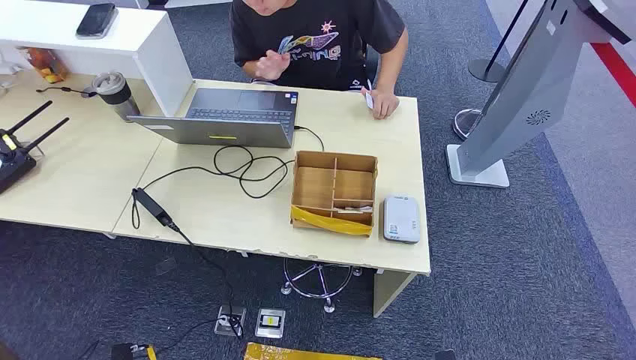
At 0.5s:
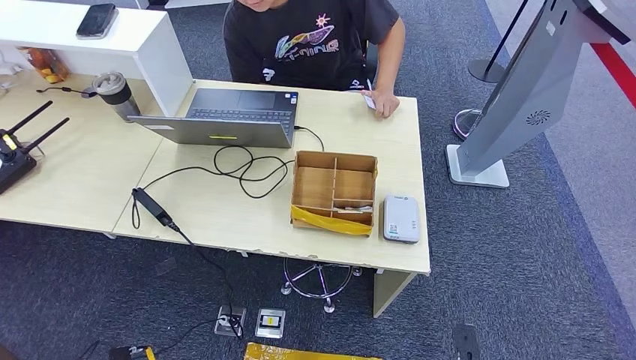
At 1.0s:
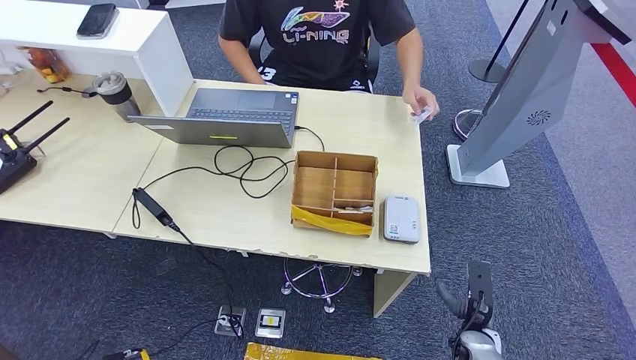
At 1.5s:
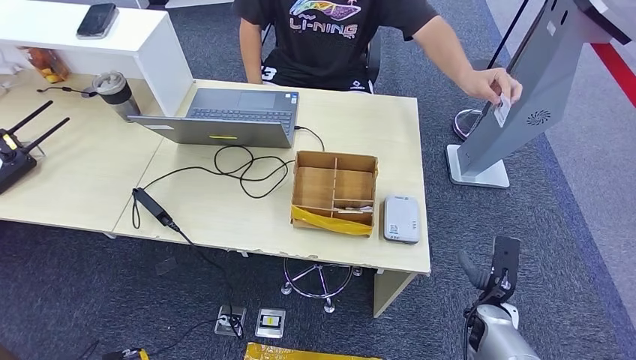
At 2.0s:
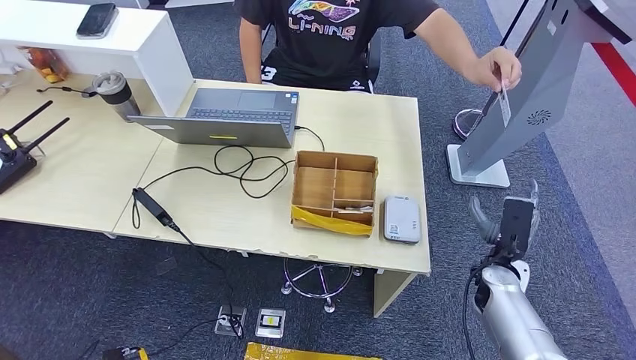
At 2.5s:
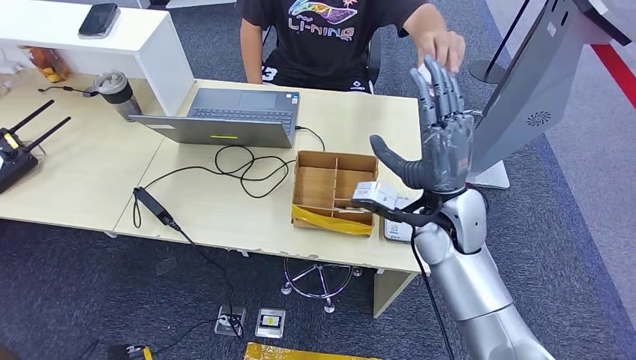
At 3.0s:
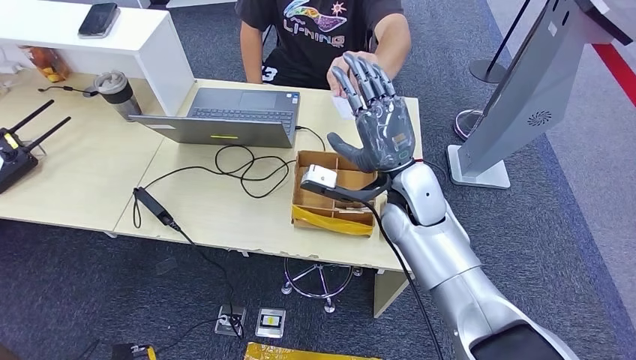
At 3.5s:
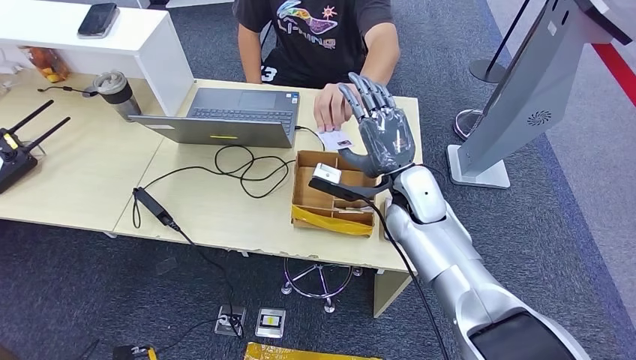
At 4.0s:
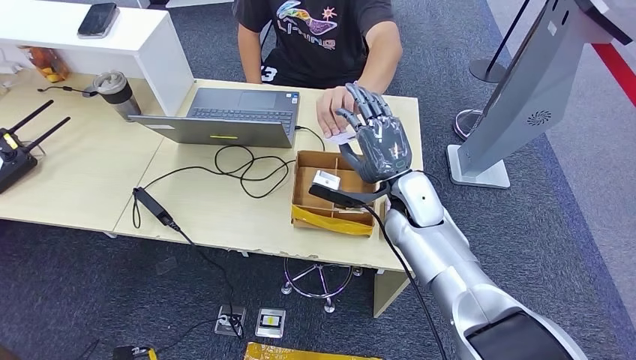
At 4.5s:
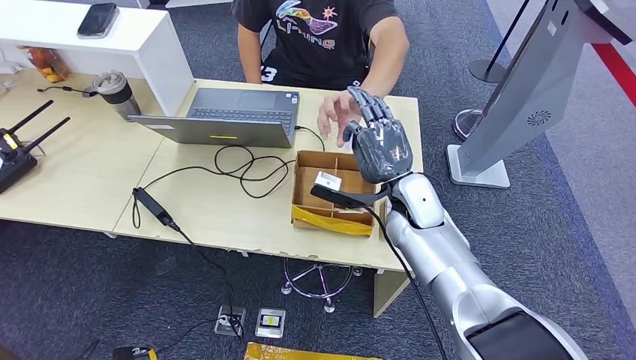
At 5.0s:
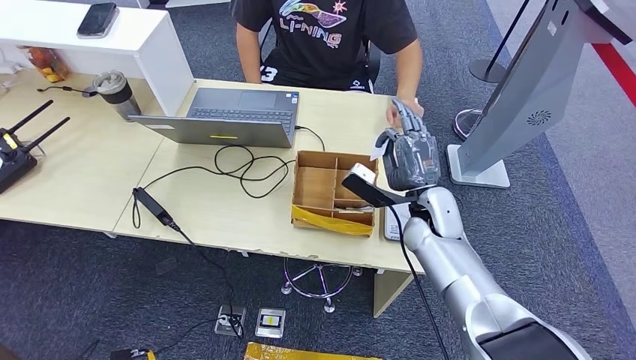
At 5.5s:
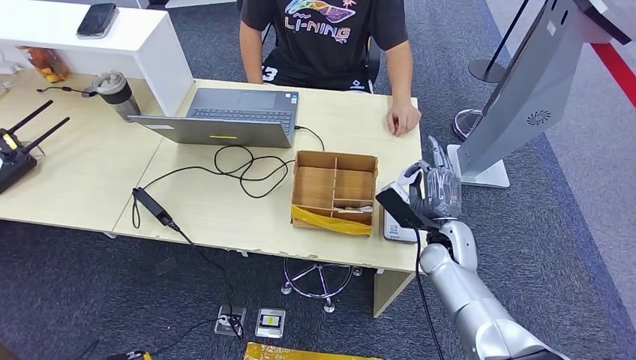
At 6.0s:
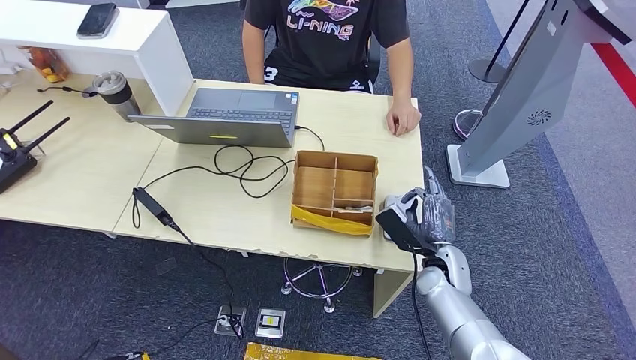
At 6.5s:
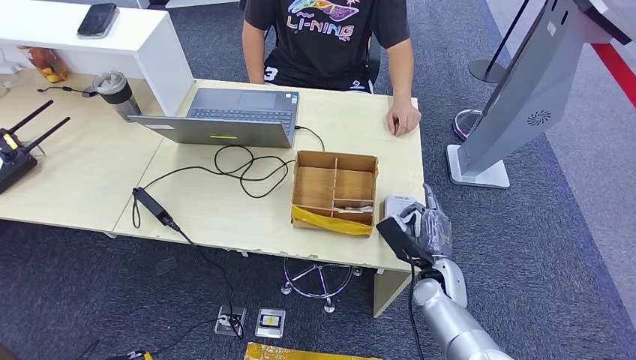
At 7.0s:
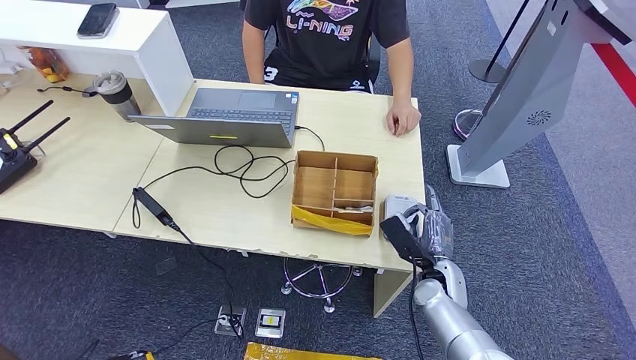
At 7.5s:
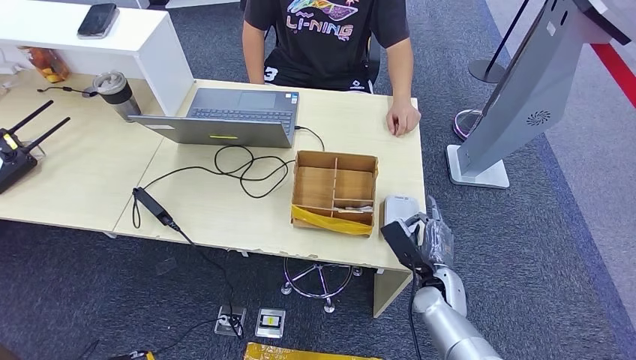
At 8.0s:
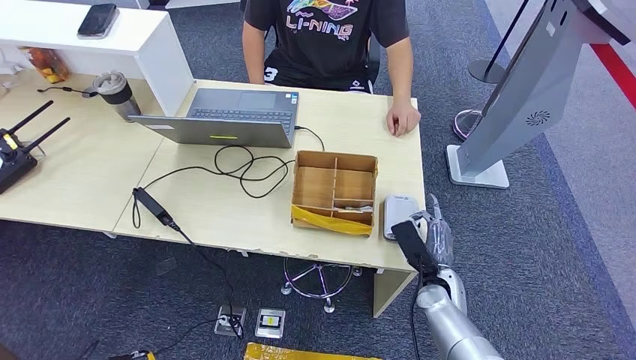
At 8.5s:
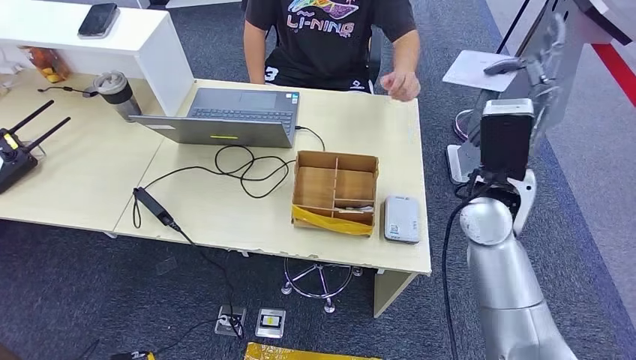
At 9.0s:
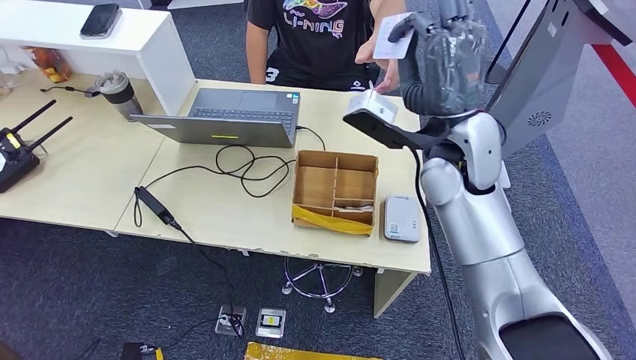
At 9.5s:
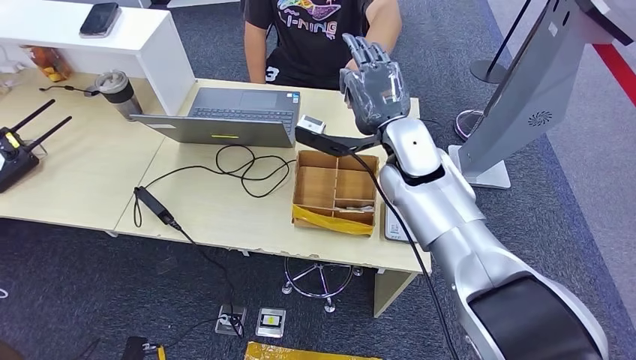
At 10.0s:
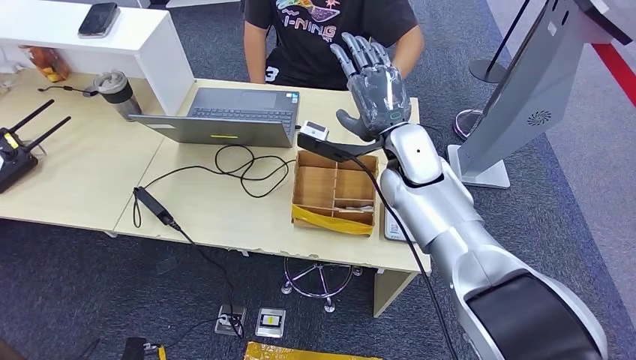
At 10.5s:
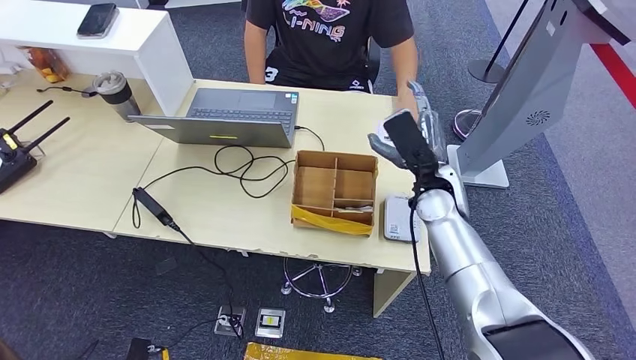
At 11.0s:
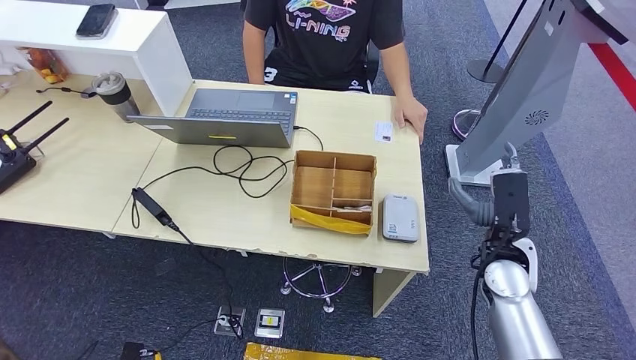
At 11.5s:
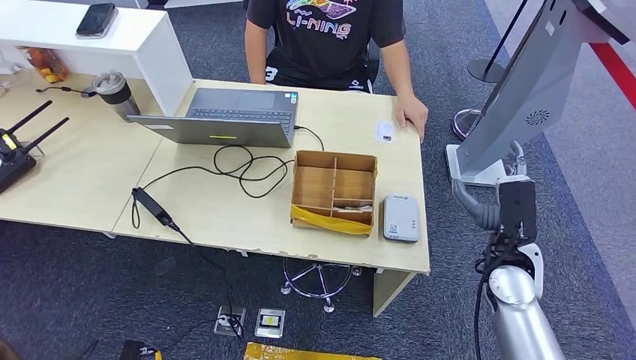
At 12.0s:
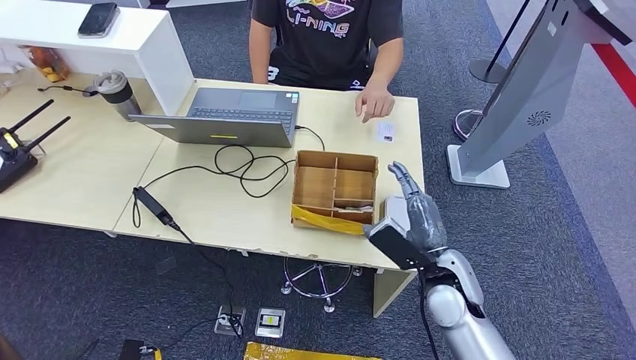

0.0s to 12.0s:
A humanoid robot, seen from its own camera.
Step, 0.0s to 4.0s: Take the ID card from the person's hand.
Step, 6.0s to 6.5s: Place the ID card on the card reader.
Step, 7.0s to 10.5s: Hand the ID card to the person.
2.0s to 4.0s: The right hand shifts some 25 cm to the left and upward.
4.0s to 6.0s: The right hand travels downward, to the right and backward by approximately 20 cm.
6.0s to 8.0s: The hands make only small movements.
8.0s to 10.0s: The right hand shifts about 30 cm upward, forward and to the left.
10.0s to 12.0s: The right hand shifts roughly 20 cm downward, backward and to the right.

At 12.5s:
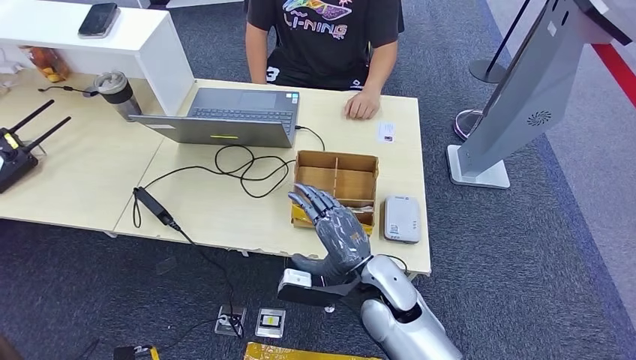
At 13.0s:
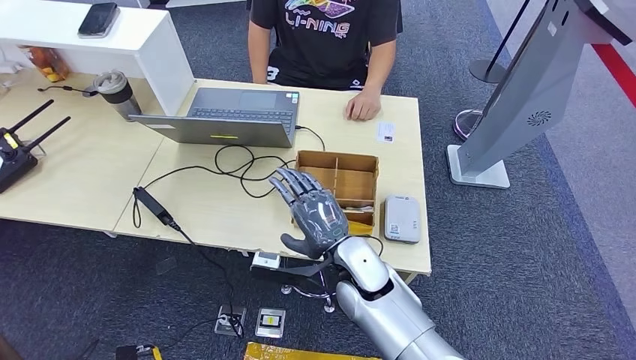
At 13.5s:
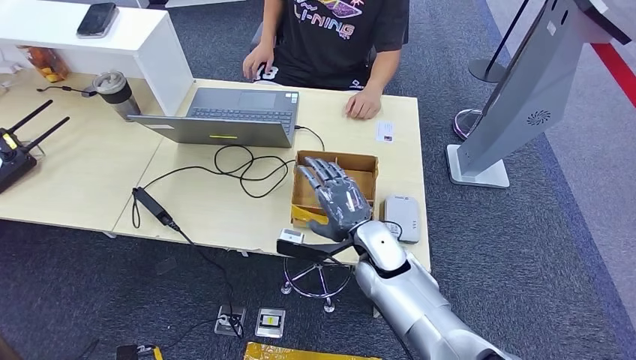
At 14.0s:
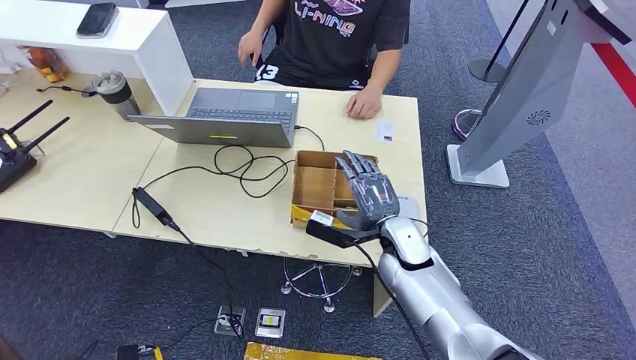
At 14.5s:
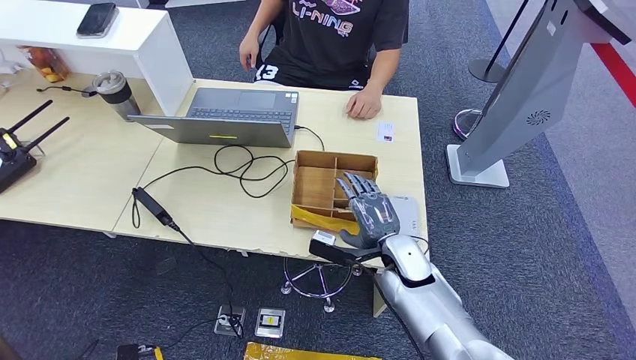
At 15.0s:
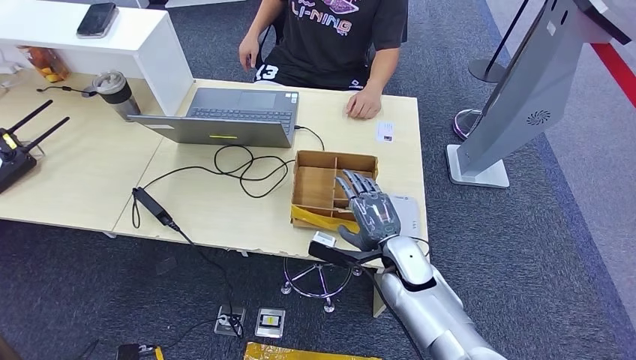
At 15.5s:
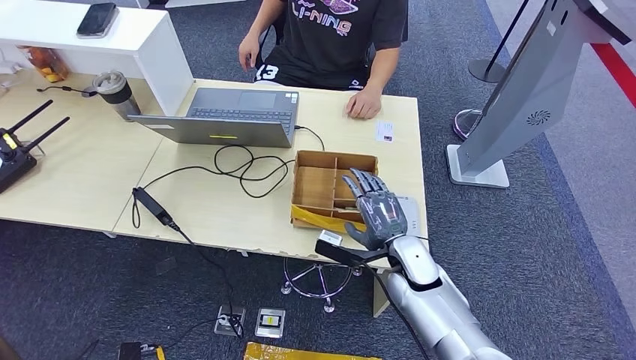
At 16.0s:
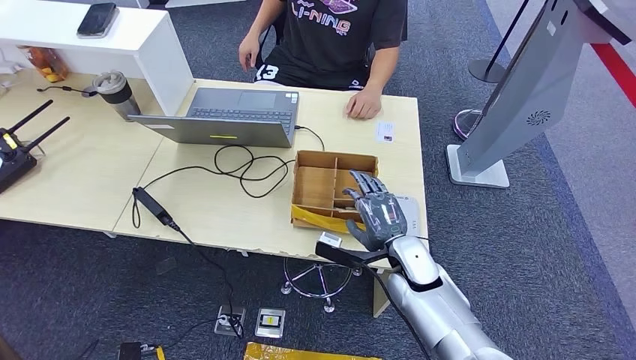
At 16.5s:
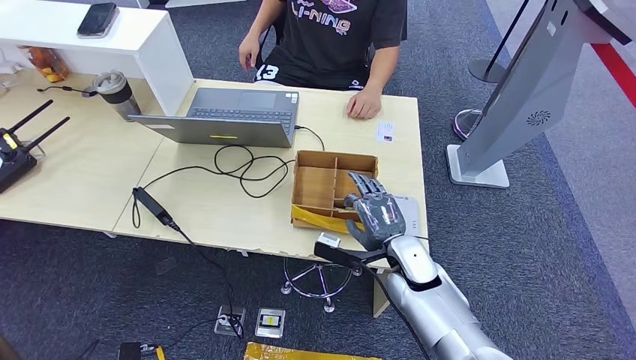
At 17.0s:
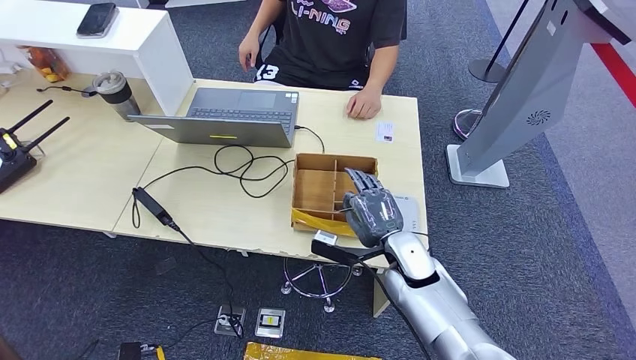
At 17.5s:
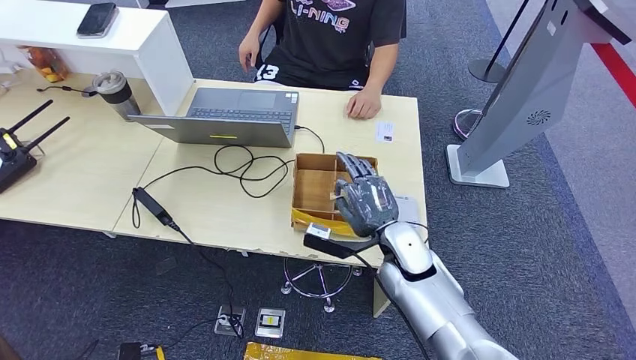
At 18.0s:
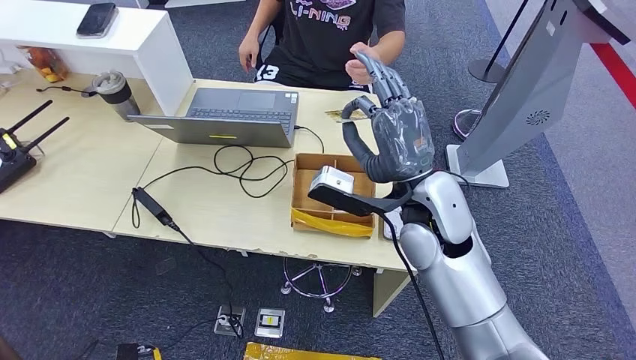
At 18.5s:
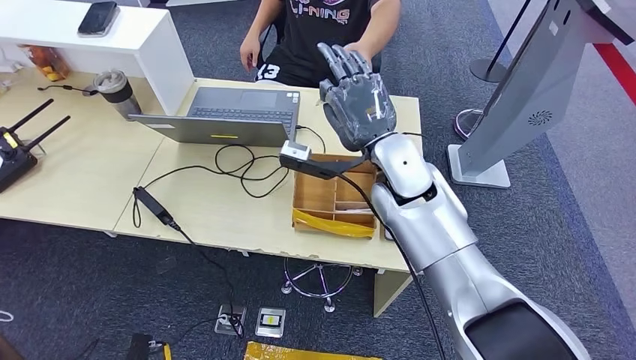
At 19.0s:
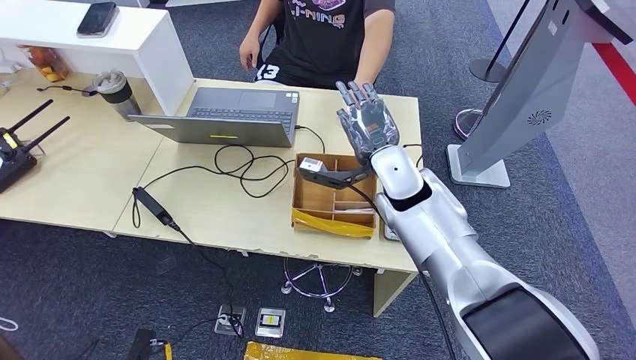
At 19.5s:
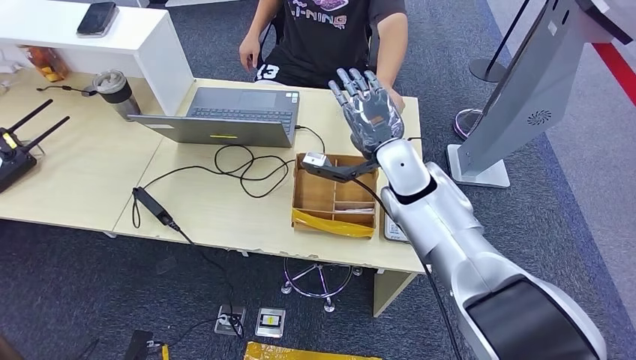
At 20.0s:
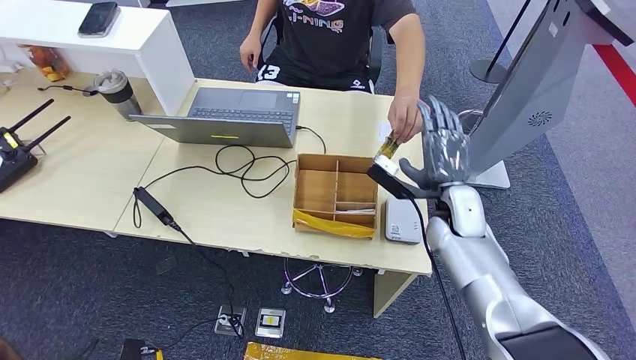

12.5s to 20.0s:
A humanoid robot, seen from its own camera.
Step, 12.5s to 18.0s: Pick up the room key from the key card box.
Step, 18.5s to 20.0s: Hand the room key to the person.
12.5s to 14.5s: The right hand heads forward, covering some 5 cm.
14.5s to 16.5s: Neither hand changes place.
16.5s to 18.0s: The right hand moves upward, some 20 cm.
18.0s to 20.0s: The right hand travels downward, to the right and forward by some 15 cm.
